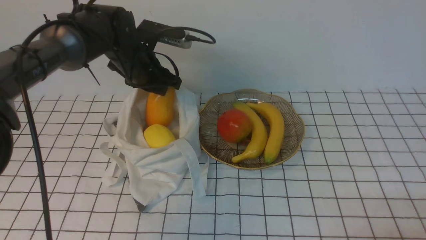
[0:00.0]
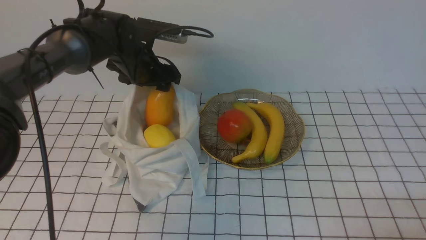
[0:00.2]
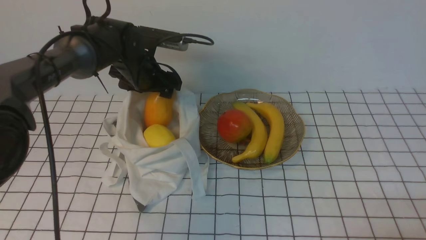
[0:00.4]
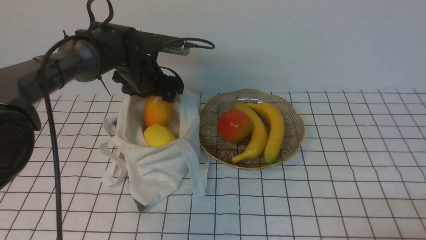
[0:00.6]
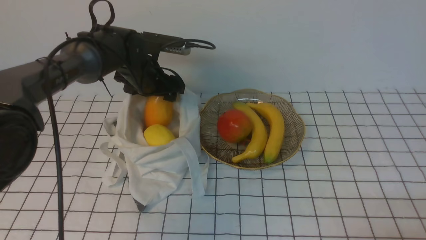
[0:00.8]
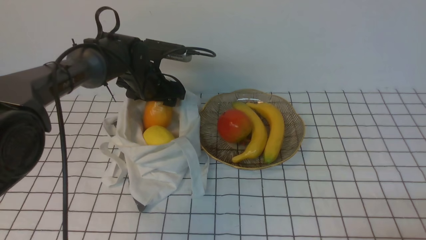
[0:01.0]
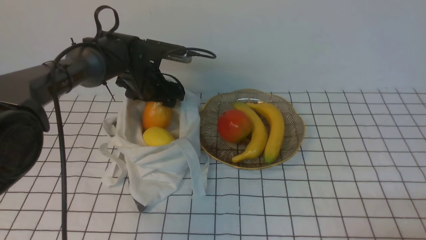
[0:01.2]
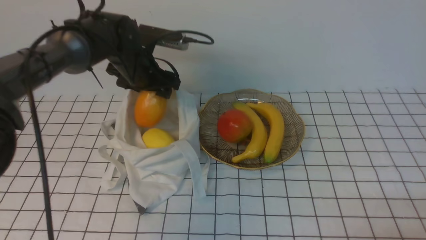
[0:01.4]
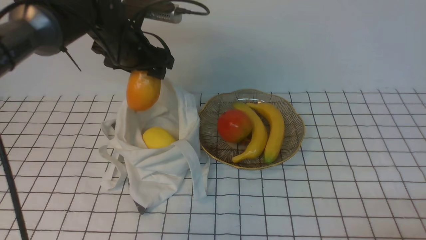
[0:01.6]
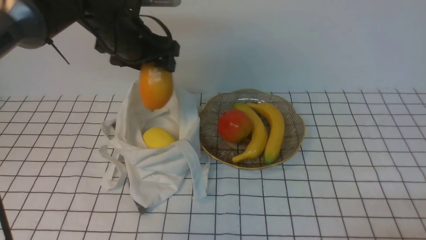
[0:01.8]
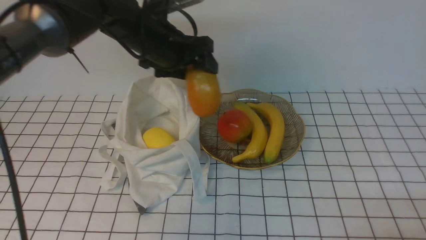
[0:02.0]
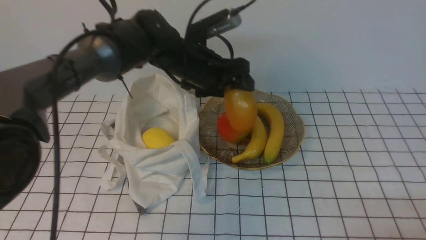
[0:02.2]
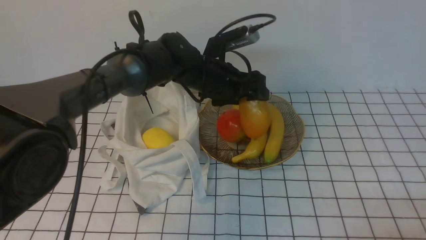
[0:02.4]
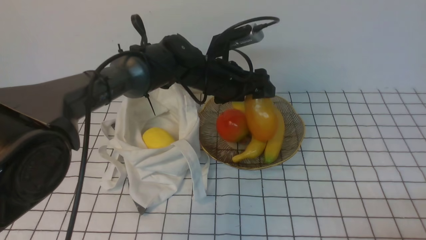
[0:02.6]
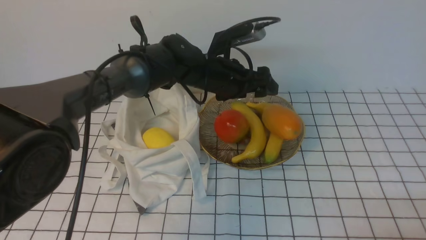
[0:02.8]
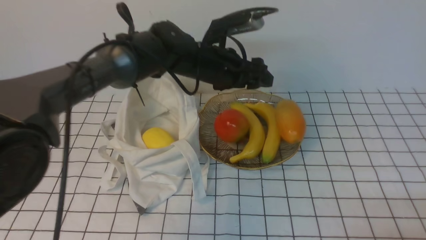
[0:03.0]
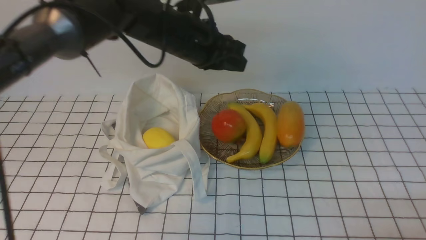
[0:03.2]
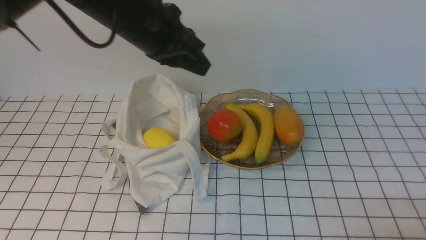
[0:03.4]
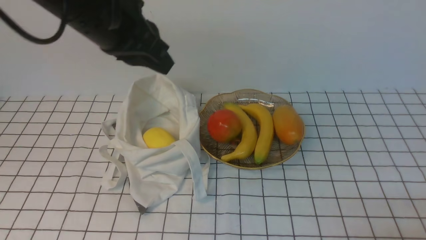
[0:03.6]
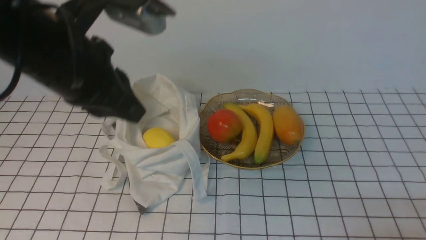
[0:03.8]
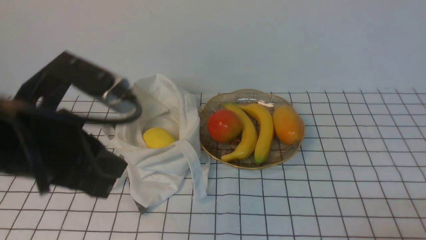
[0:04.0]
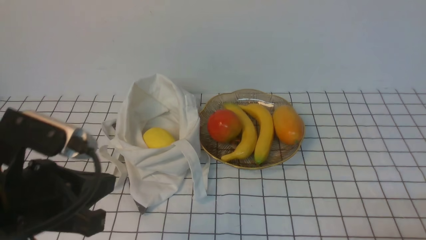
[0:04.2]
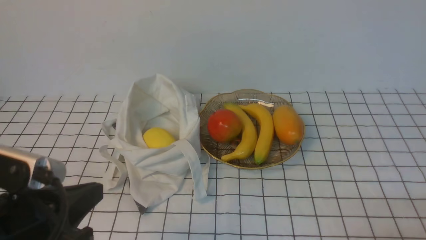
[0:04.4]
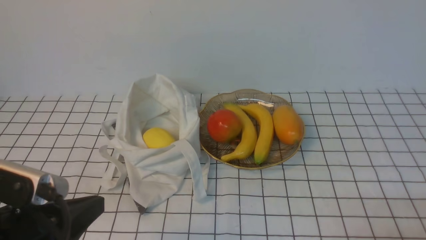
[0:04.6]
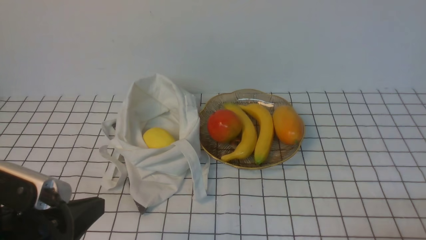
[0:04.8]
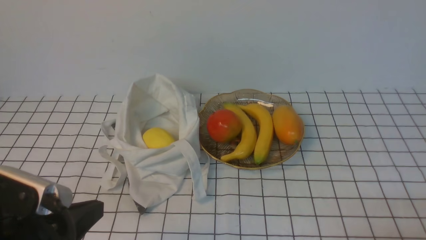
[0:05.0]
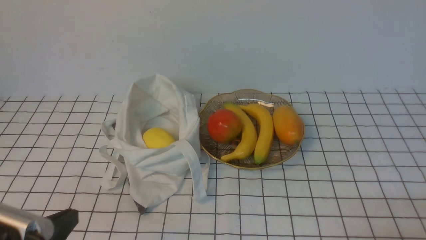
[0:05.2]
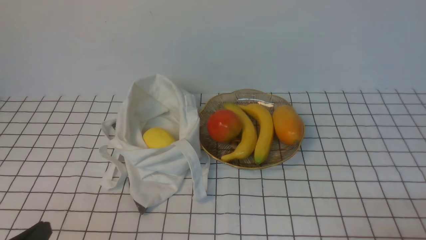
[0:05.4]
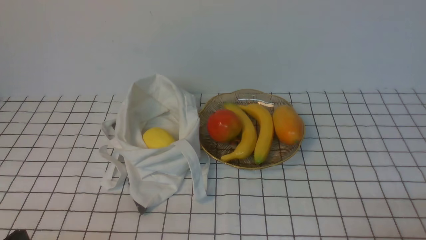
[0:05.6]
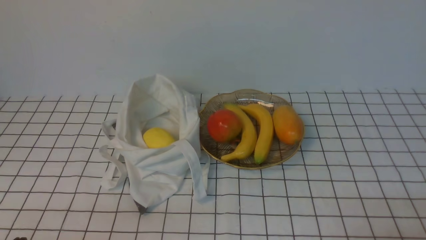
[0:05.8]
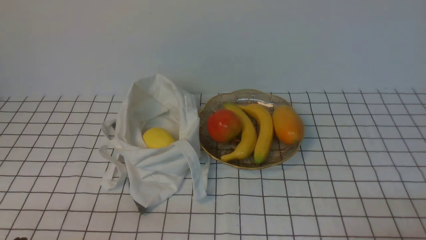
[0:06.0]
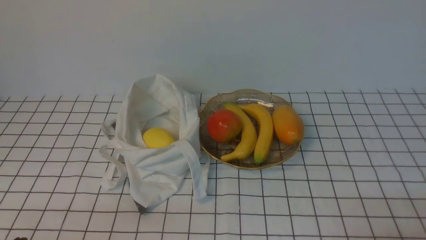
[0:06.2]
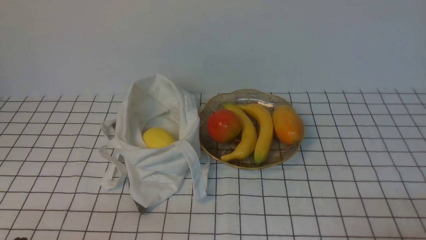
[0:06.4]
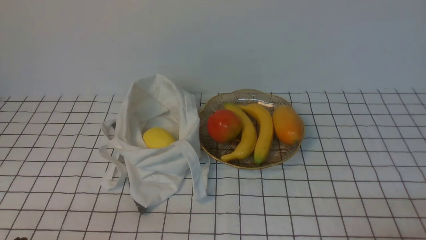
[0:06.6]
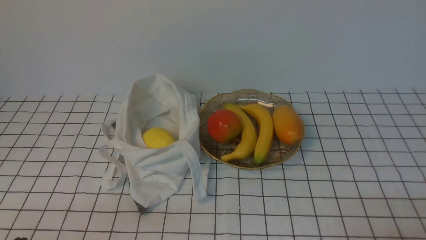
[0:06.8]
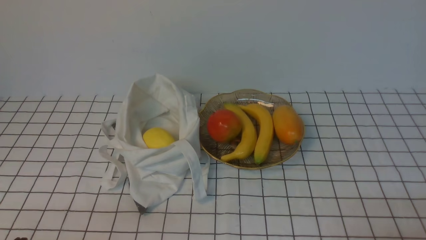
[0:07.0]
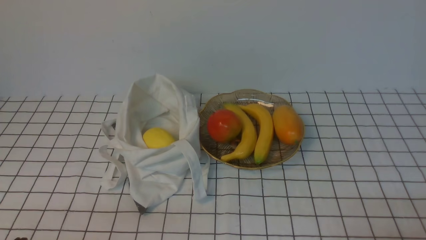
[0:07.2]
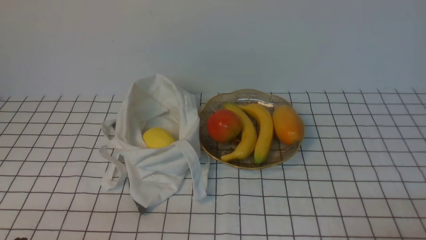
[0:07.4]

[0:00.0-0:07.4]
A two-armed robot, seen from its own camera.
Step, 0:01.4 to 0:02.8: use the left arm to put the mango into the empty plate on the right.
0:00.0 to 0:01.4: The left gripper opens up.
0:01.4 to 0:03.0: The left gripper heads to the right, covering approximately 10 cm.
0:03.0 to 0:04.4: The left gripper moves backward and to the left, approximately 35 cm, and closes its fingers.
0:04.4 to 0:06.0: The left gripper is displaced downward, backward and to the left by about 15 cm.
0:06.0 to 0:07.4: Both grippers stay put.
